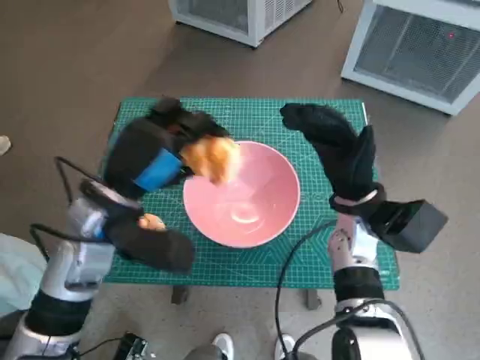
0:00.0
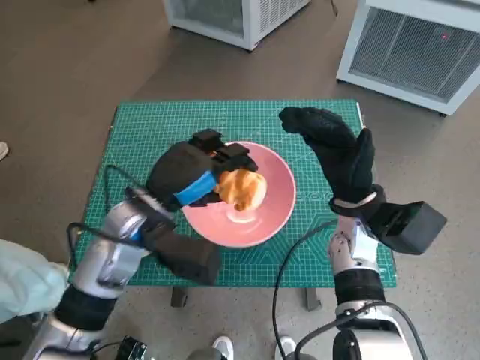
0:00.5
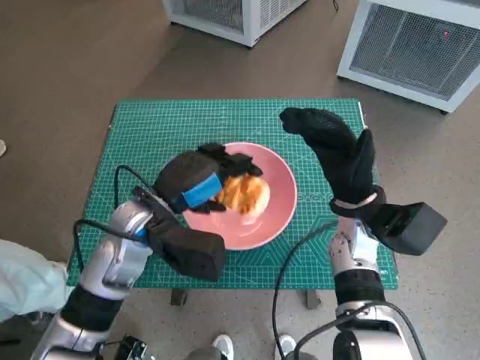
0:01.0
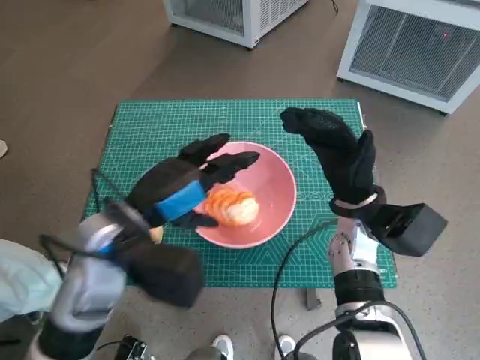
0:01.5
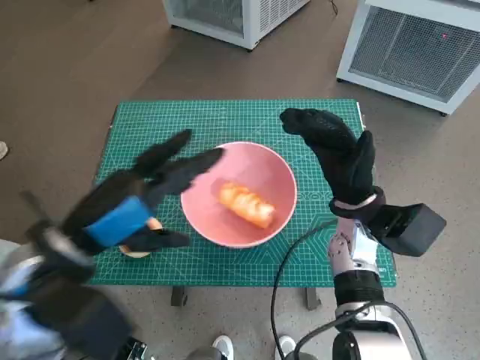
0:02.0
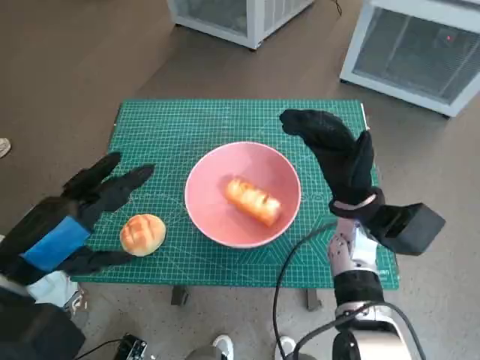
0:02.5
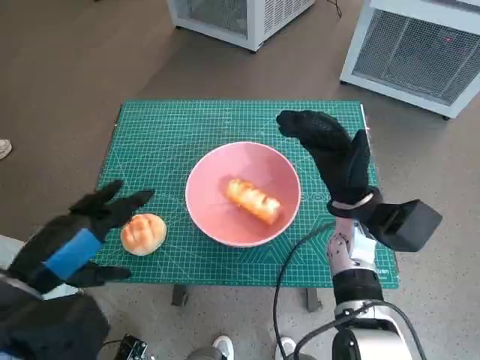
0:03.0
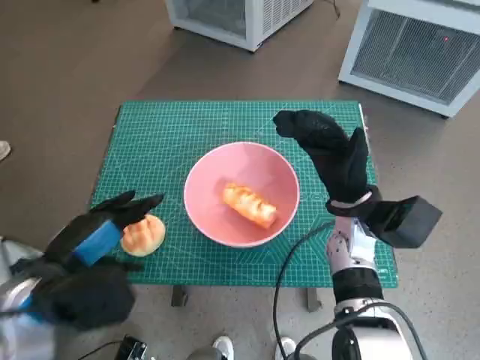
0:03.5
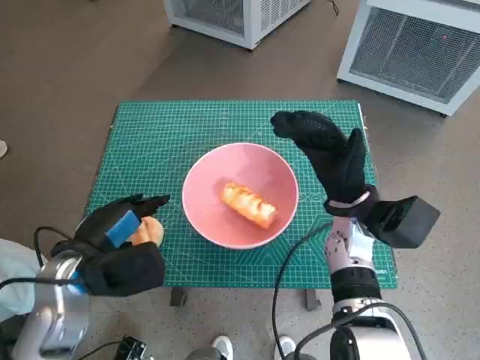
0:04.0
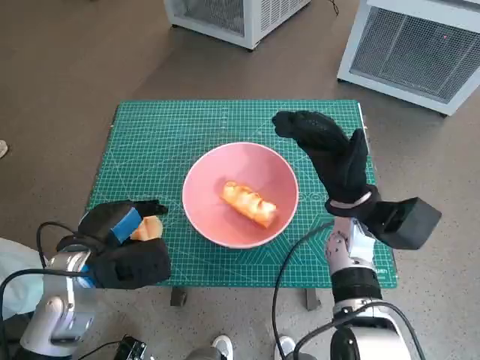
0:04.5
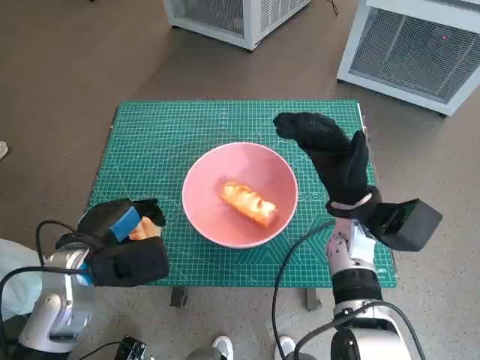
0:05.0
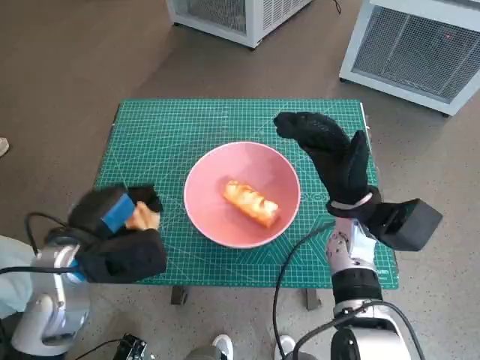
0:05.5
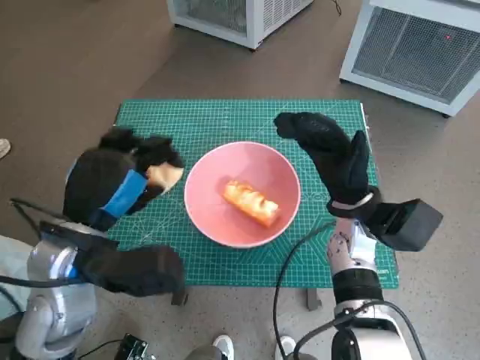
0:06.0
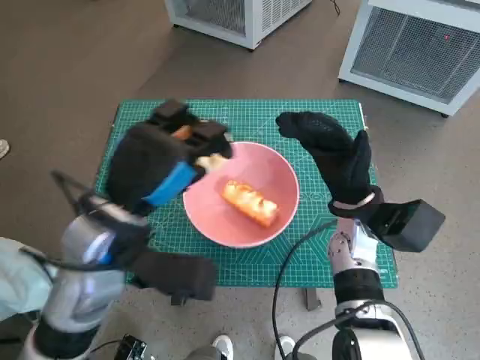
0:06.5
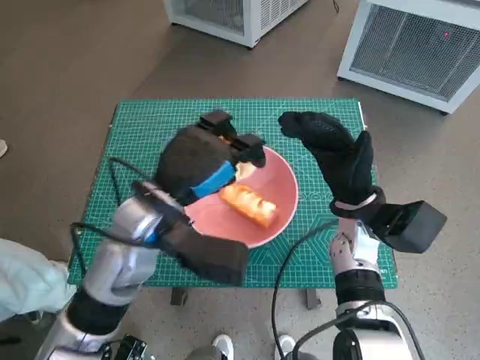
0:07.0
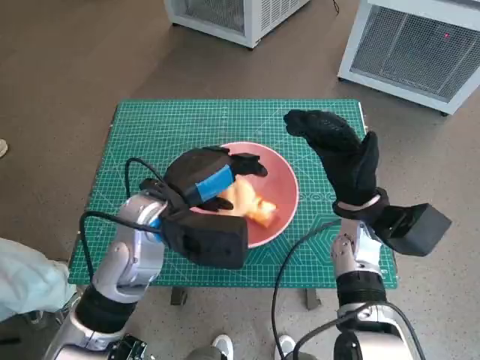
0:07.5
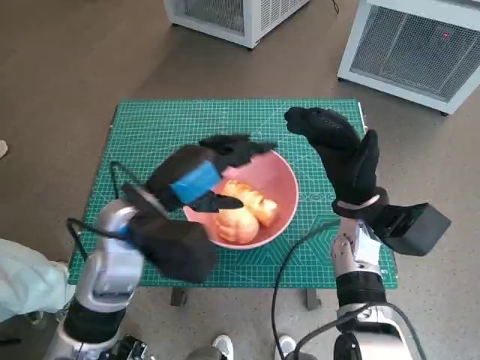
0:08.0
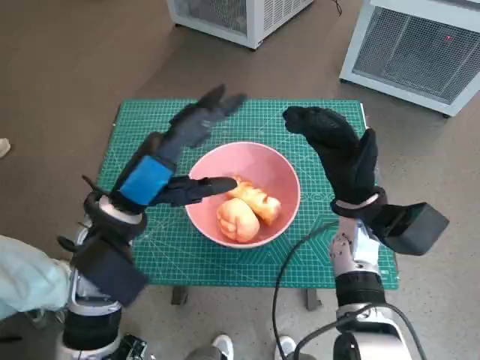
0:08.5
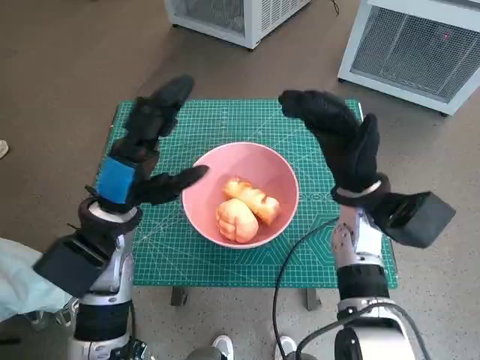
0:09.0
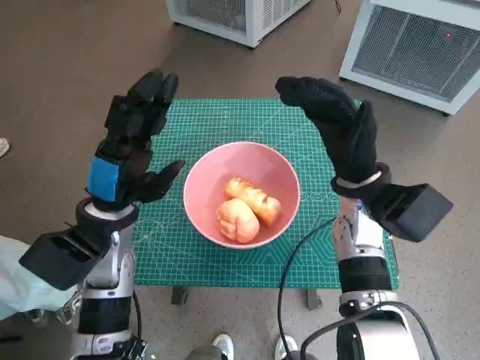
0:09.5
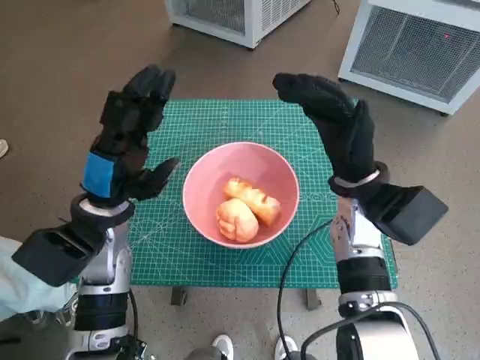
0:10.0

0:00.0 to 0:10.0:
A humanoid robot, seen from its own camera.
Task of the whole recording: Push the bowl into the center of the table and put the bread into the bowl.
Step, 0:01.5 to 0:04.5: Grasp the round bread with left hand.
Step, 0:05.0 to 0:08.0: Place the round bread in pink bowl with left hand.
0:00.0 to 0:02.0: The left hand goes roughly 5 cm backward.
0:02.0 to 0:04.0: The left hand travels downward by roughly 10 cm.
0:04.0 to 0:06.0: The left hand heads upward, covering roughly 5 cm.
0:06.0 to 0:08.0: The left hand goes some 5 cm to the right.
0:08.0 to 0:10.0: The left hand moves to the left, some 5 cm.

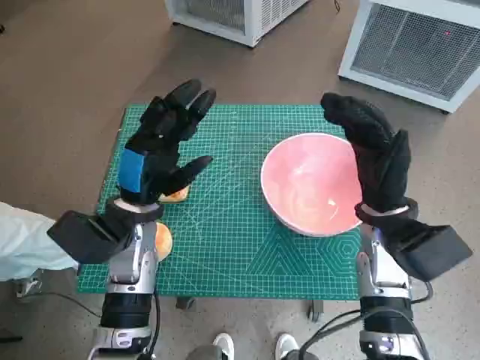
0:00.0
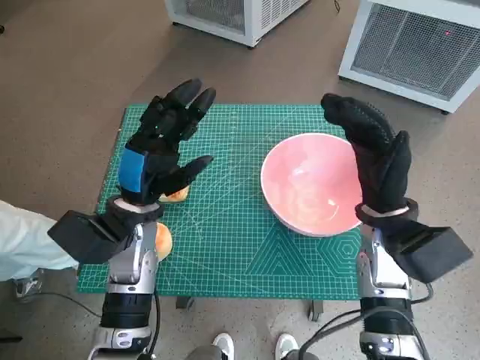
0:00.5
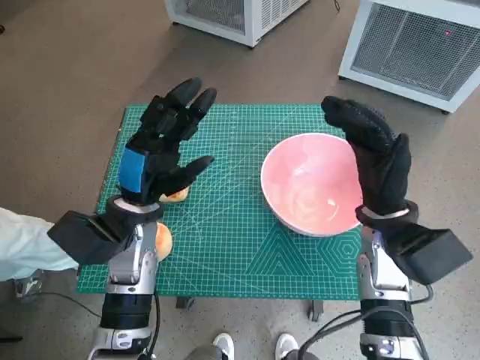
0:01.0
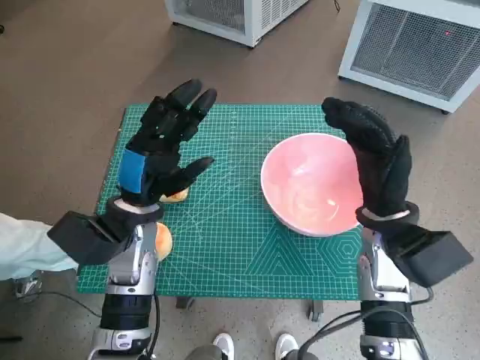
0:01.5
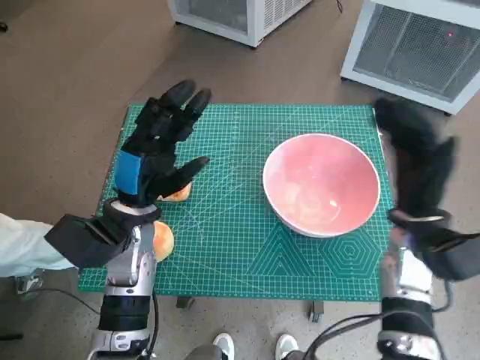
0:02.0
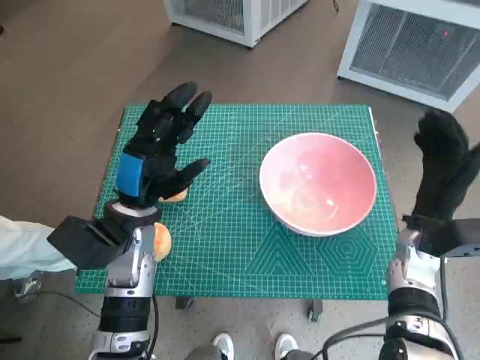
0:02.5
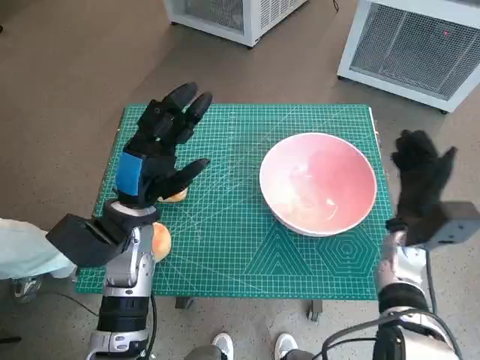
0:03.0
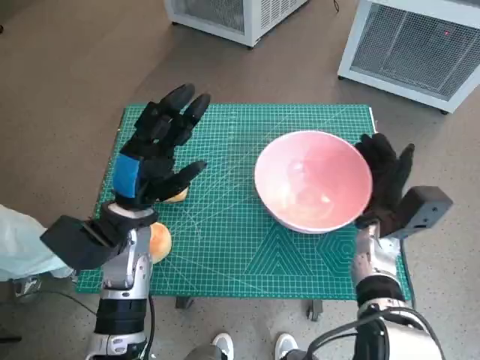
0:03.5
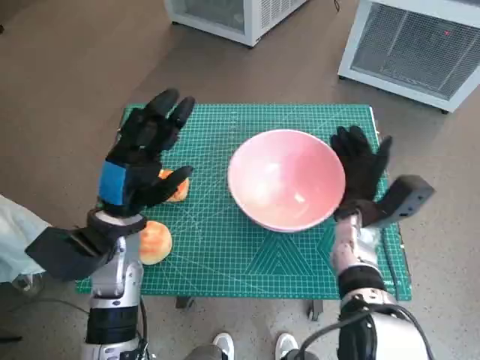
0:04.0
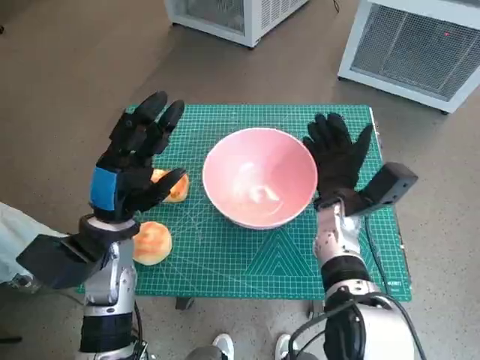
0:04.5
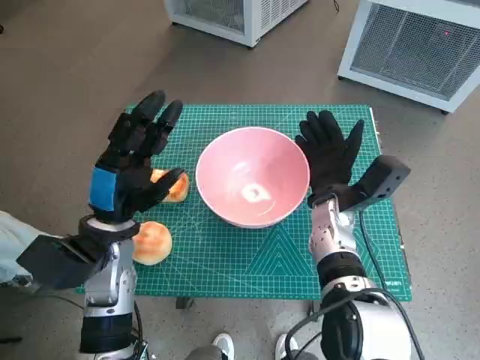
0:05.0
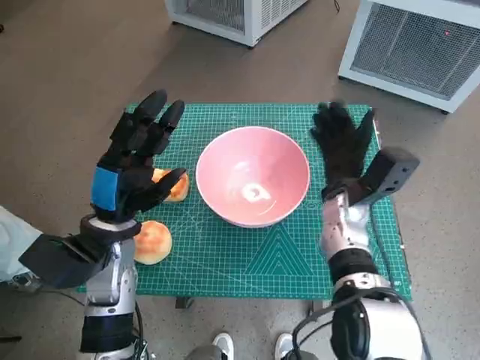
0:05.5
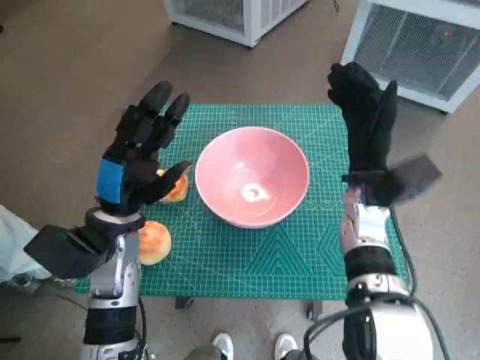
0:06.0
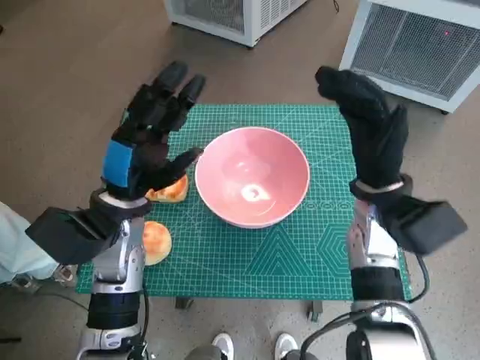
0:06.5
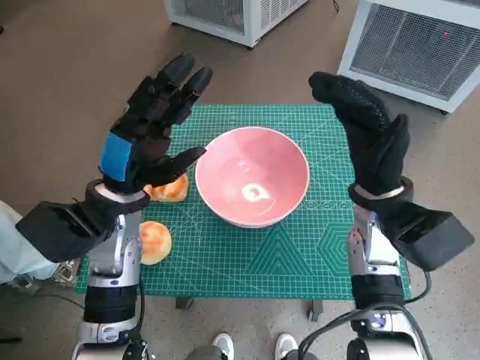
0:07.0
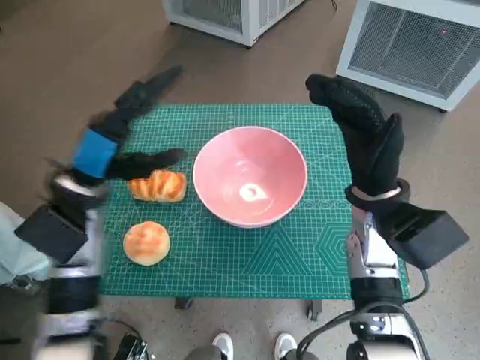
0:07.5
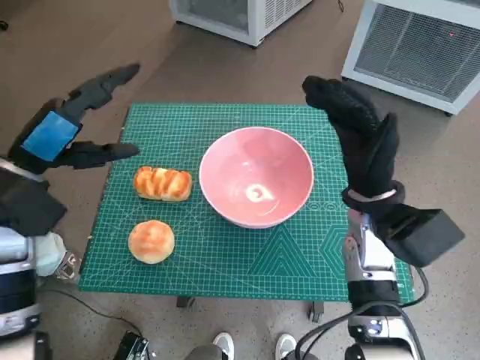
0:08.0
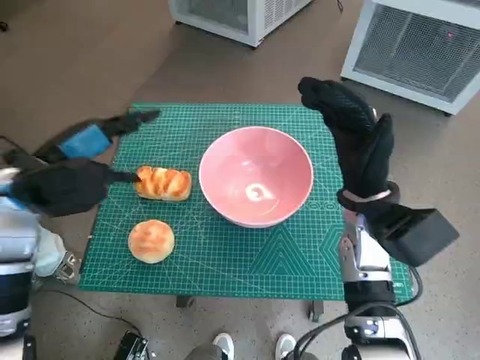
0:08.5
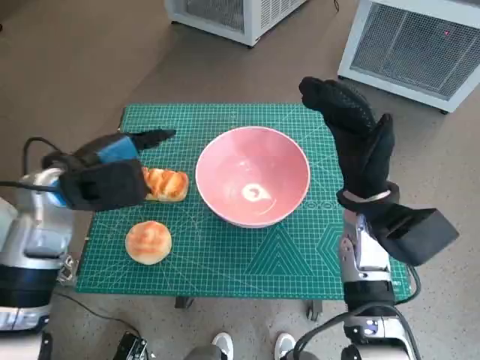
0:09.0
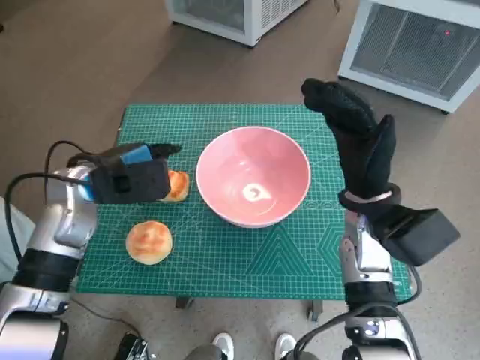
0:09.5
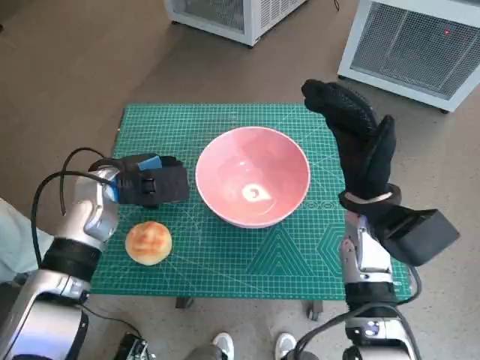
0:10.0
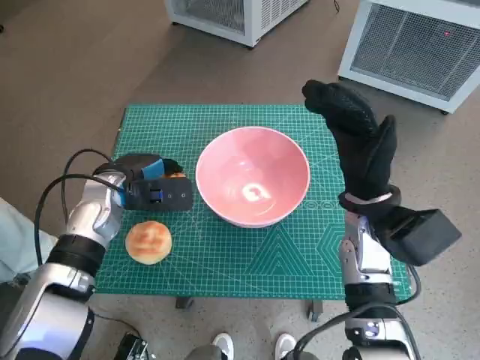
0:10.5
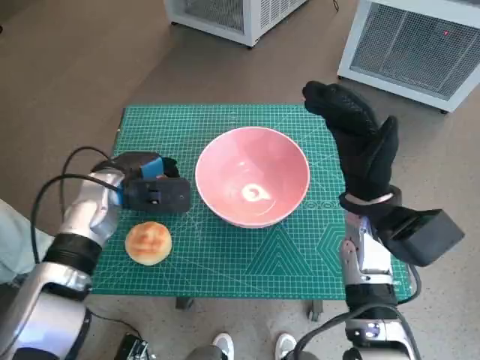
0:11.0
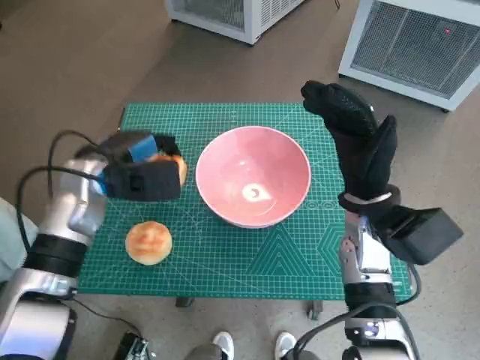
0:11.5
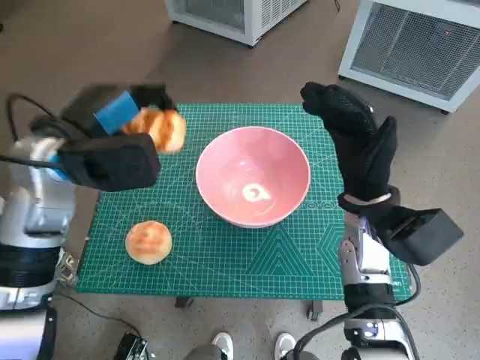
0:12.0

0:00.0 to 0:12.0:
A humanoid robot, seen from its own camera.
Task of the whole recording: Push the bowl into the center of the table and put the bread into the bowl.
Step, 0:00.0 to 0:05.0: Move the pink bowl to the center of table with right hand.
Step, 0:05.5 to 0:10.0: Grasp the long bread with left hand.
0:02.0 to 0:04.0: The right hand travels downward and to the left by some 10 cm.
0:04.0 to 0:06.0: The right hand shifts roughly 5 cm upward.
0:06.0 to 0:08.0: The left hand shifts some 10 cm to the left and upward.
0:08.0 to 0:10.0: The left hand moves downward, to the right and forward, approximately 10 cm.
0:10.0 to 0:12.0: The left hand goes approximately 10 cm upward.

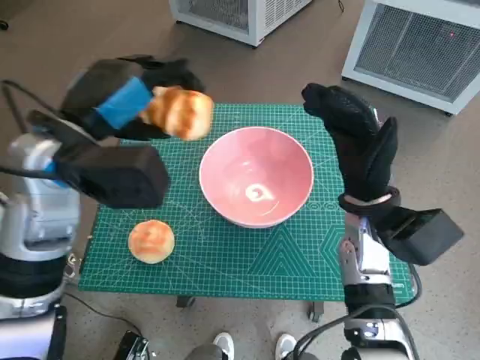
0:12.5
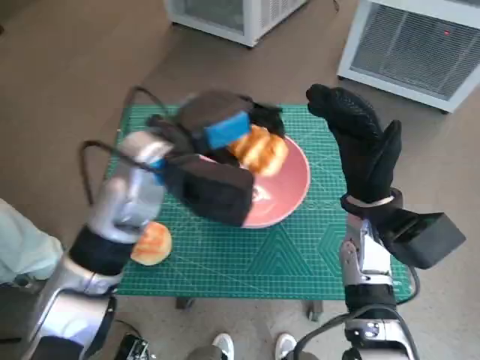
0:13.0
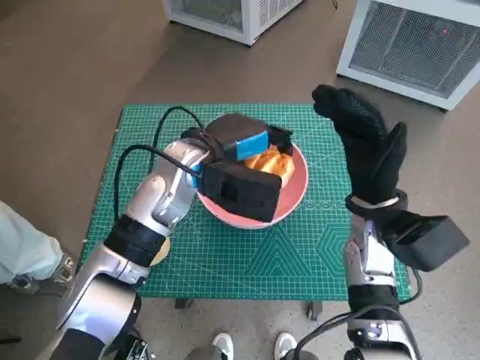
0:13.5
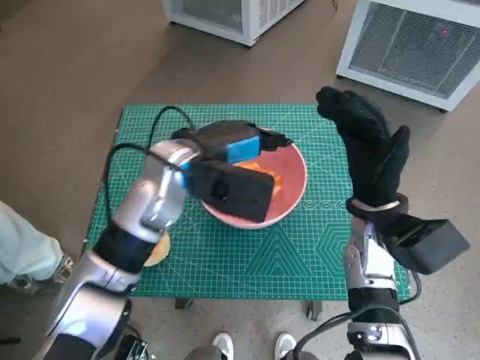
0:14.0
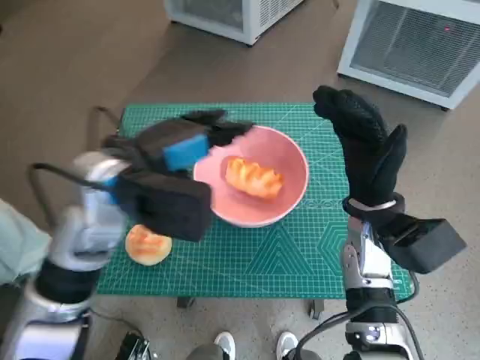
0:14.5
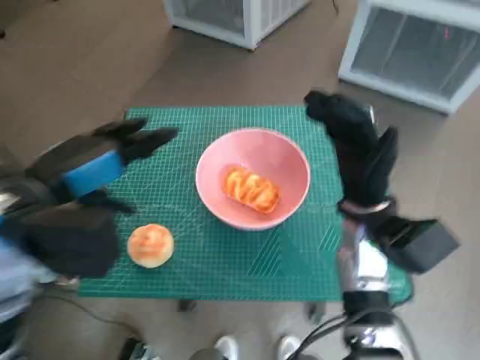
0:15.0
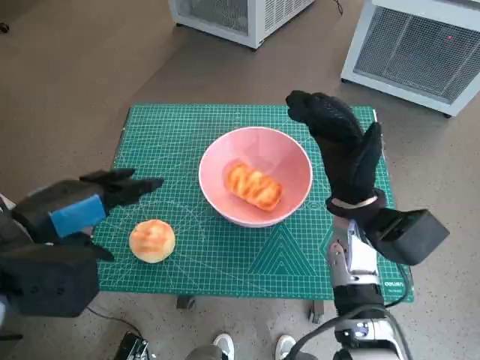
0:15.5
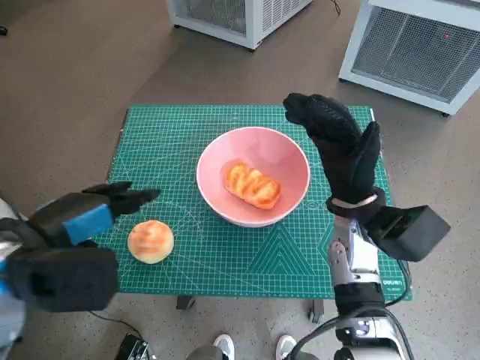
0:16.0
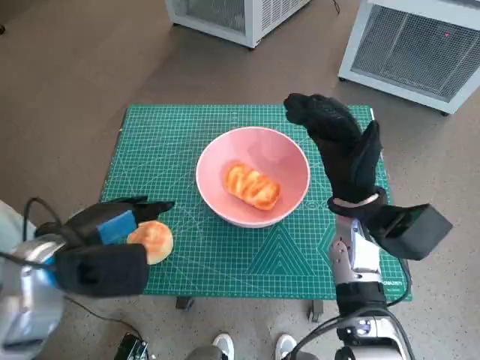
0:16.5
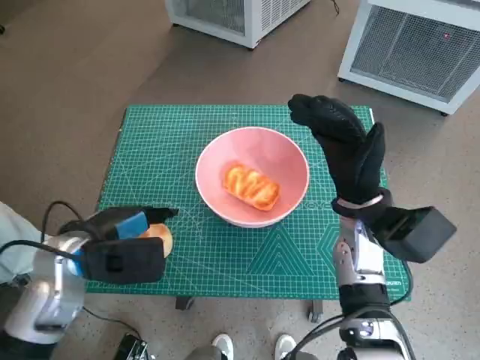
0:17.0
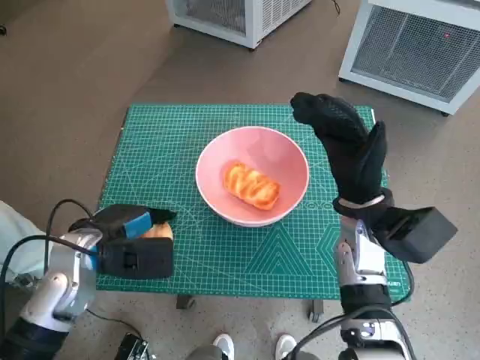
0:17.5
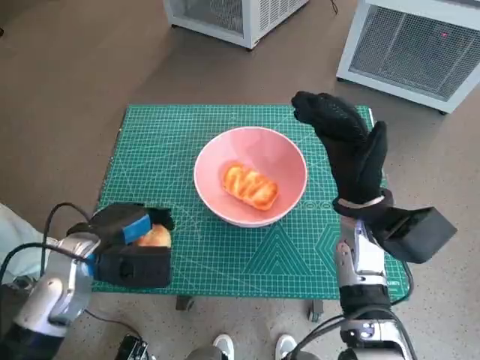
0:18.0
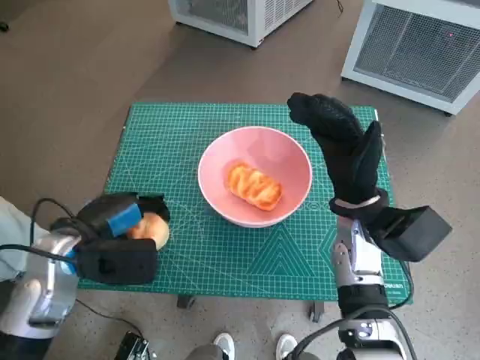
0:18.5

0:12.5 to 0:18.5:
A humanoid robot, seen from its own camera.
Task of the whole recording: Push the bowl into the center of the table and put the bread into the bowl.
Step, 0:14.5 to 0:17.0: Grasp the round bread with left hand.
0:12.5 to 0:14.5: The left hand moves some 10 cm to the right and comes back.
0:14.5 to 0:16.5: The left hand goes roughly 10 cm to the left, backward and downward.
